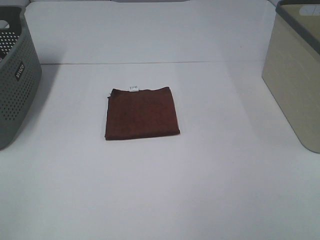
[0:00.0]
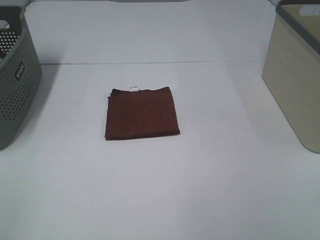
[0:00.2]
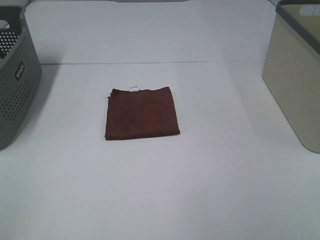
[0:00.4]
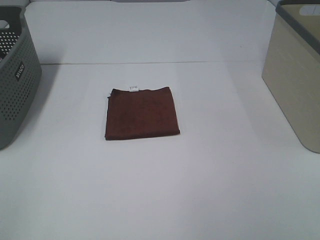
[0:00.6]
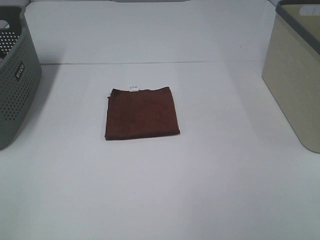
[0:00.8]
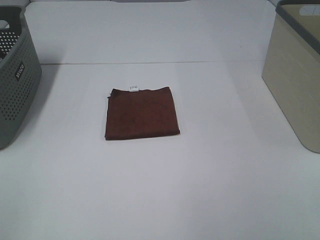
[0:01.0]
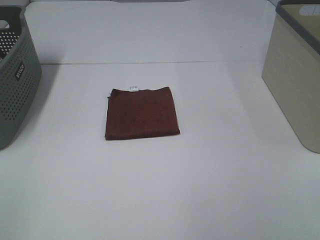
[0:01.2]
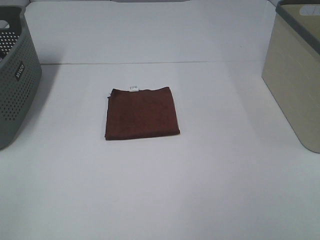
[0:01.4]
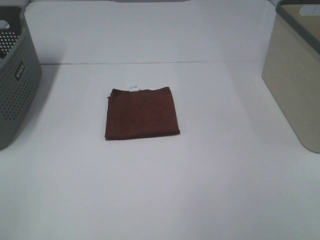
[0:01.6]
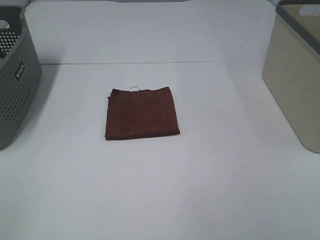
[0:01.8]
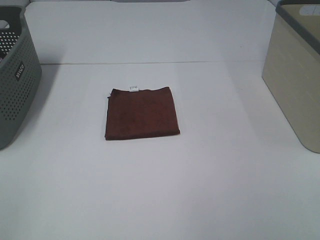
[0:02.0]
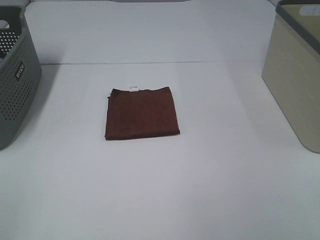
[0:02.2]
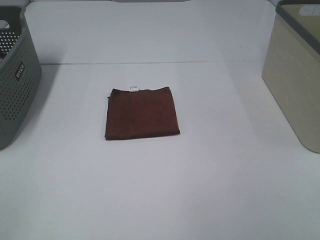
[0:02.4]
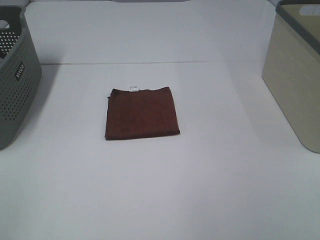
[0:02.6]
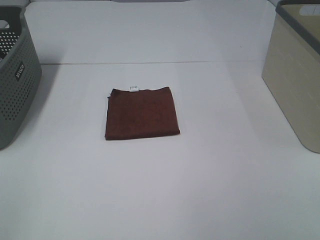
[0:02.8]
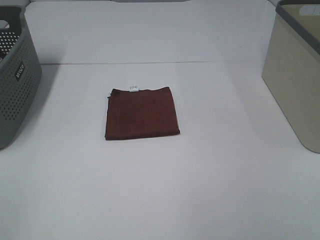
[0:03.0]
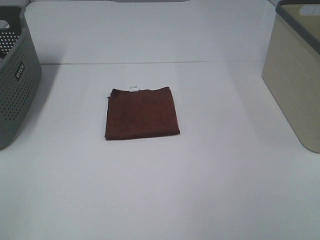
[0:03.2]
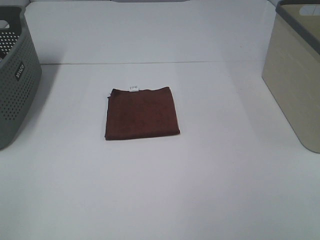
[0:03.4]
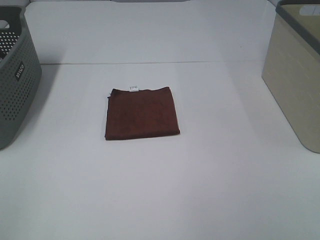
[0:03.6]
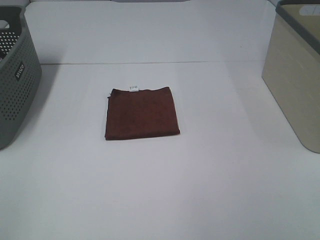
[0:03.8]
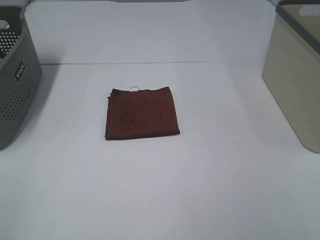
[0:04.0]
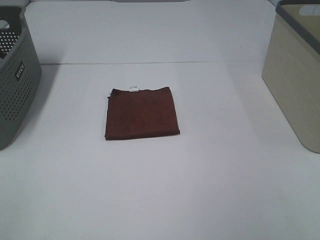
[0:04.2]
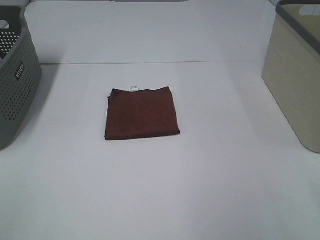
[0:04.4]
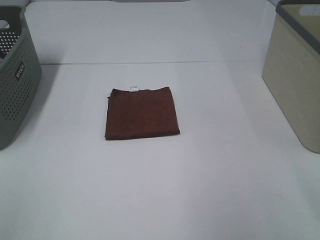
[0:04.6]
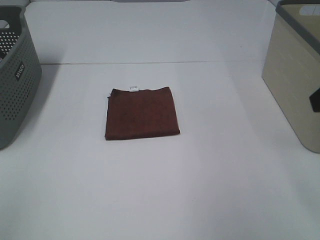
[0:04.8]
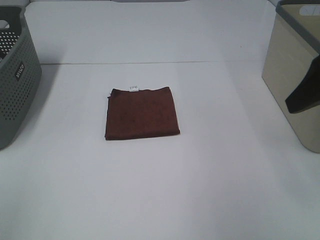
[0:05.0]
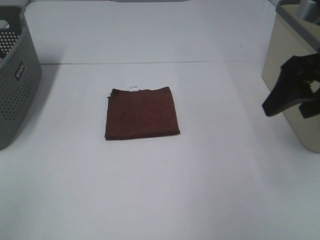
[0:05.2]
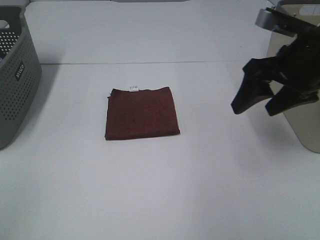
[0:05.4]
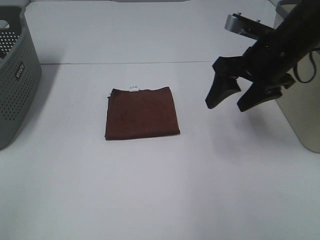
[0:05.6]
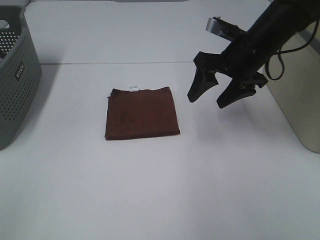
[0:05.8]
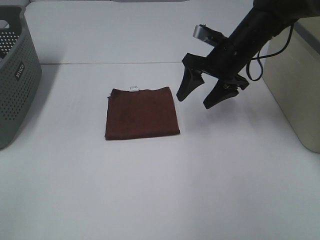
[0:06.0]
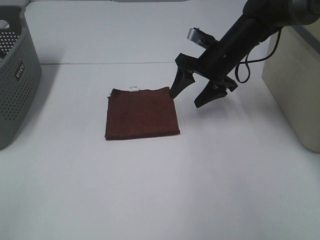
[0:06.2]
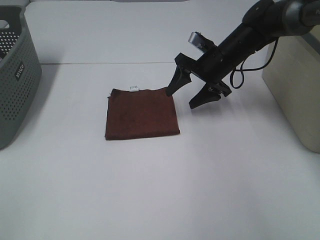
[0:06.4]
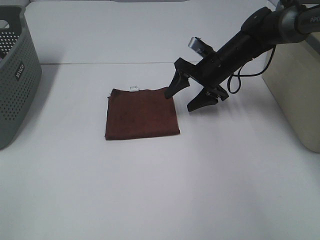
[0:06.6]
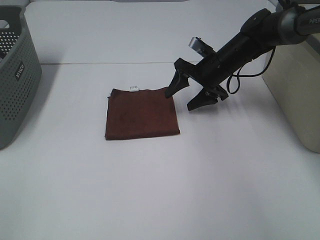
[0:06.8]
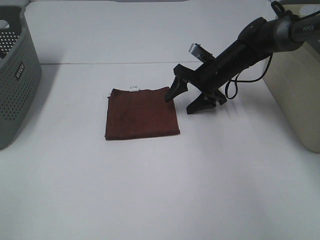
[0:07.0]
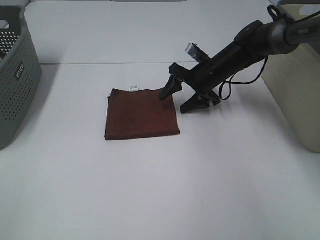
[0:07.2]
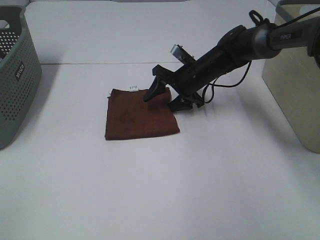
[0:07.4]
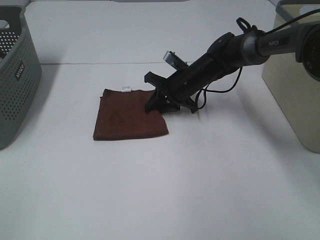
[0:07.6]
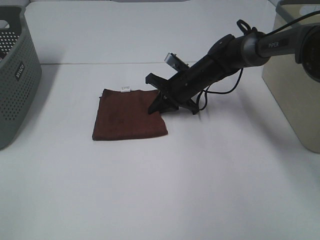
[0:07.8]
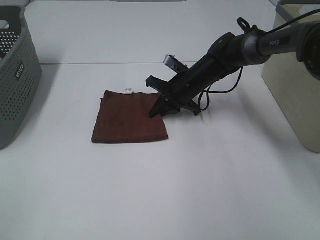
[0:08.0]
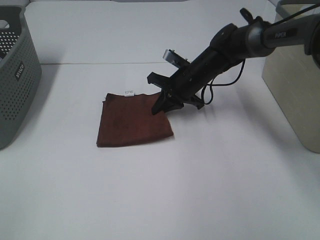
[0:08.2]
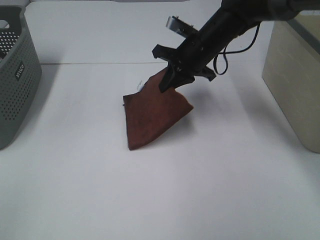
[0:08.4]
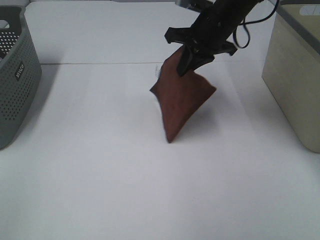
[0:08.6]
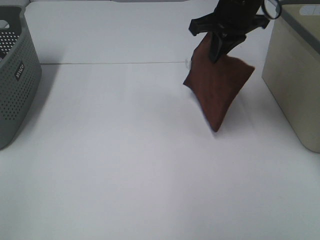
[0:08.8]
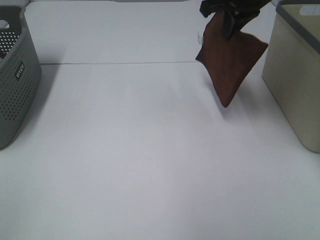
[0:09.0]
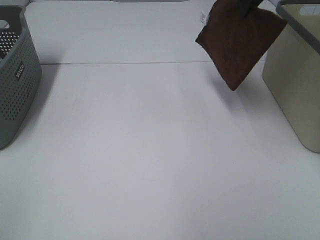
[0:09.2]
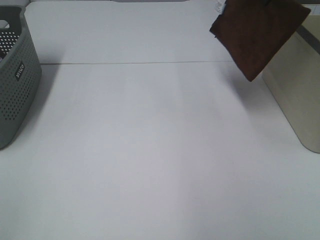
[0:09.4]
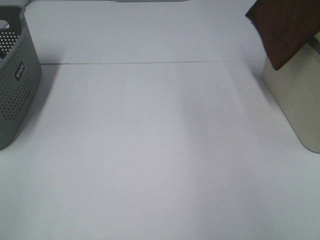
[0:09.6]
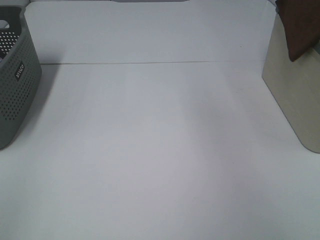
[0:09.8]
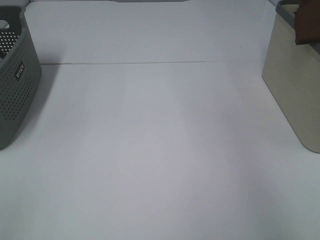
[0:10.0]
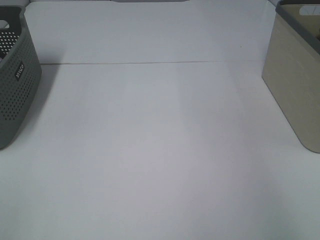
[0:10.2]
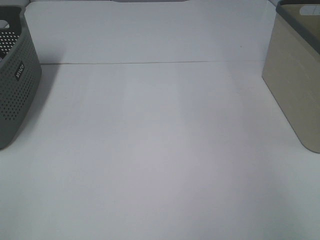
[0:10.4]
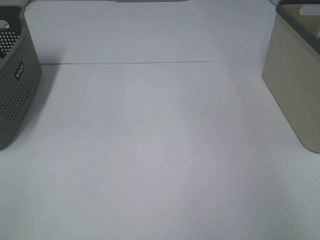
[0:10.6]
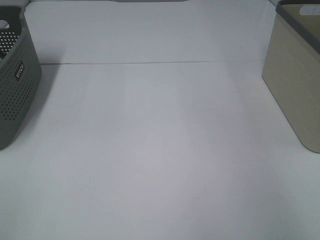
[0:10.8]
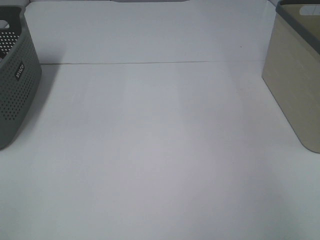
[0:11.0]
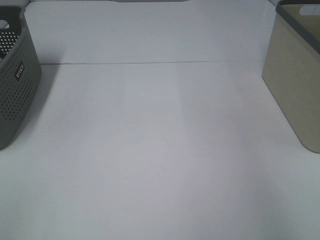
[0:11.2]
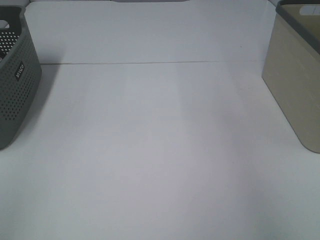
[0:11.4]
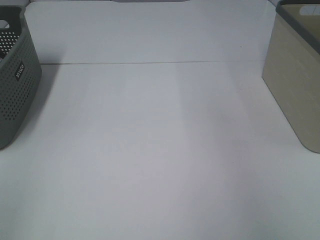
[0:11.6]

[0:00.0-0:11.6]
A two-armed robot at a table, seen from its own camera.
Step, 0:00.0 to 0:07.8: Right hand: grab the folded brown towel.
Step, 0:08.0 to 0:10.8: Right hand: place the brown towel in right basket.
0:00.0 to 0:02.8: Both grippers stay about where they are.
0:04.4 to 0:05.8: The right gripper travels forward, downward and to the left by some 35 cm.
0:05.8 to 0:07.2: The right gripper is displaced downward and forward by about 15 cm.
0:07.2 to 0:08.8: The right gripper heads upward, covering roughly 20 cm, and closes its fingers.
0:08.8 to 0:10.2: The right gripper heads to the right, covering about 25 cm.

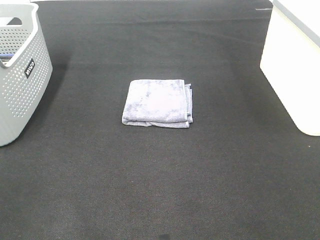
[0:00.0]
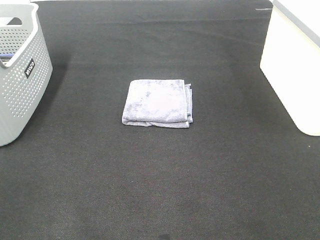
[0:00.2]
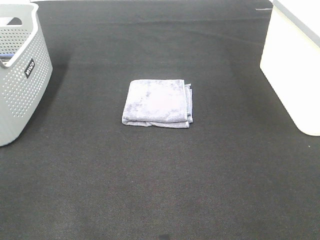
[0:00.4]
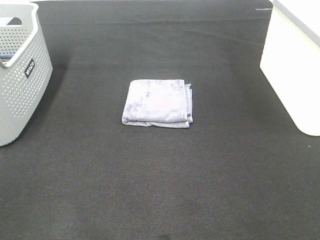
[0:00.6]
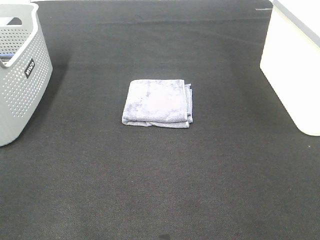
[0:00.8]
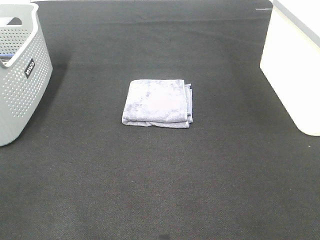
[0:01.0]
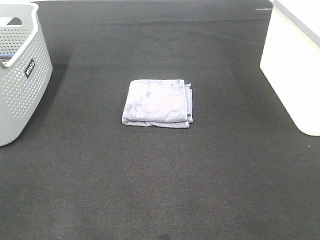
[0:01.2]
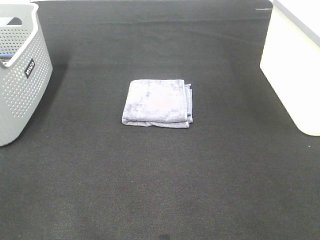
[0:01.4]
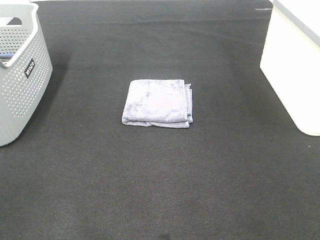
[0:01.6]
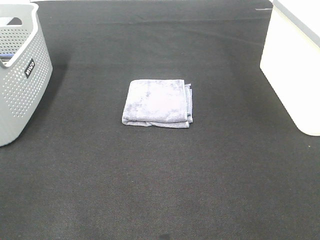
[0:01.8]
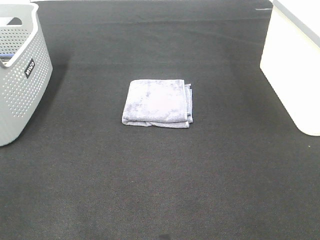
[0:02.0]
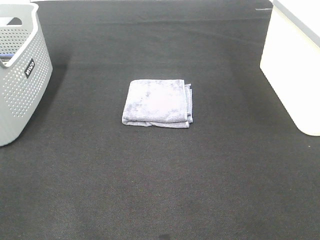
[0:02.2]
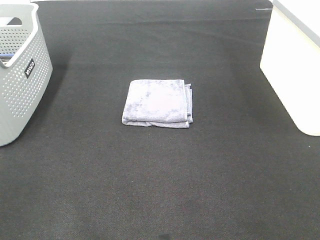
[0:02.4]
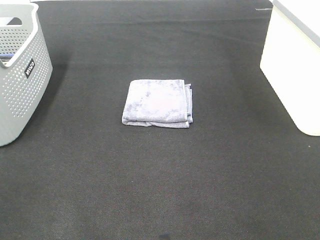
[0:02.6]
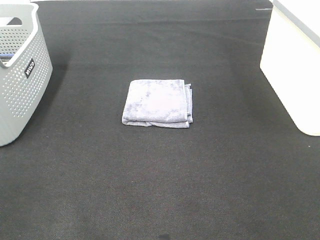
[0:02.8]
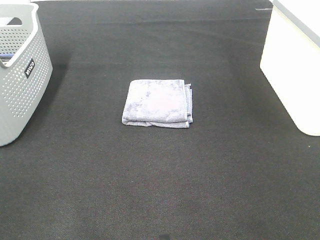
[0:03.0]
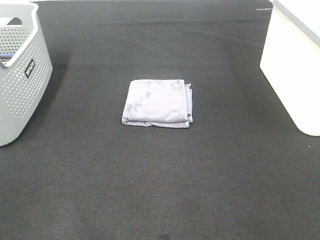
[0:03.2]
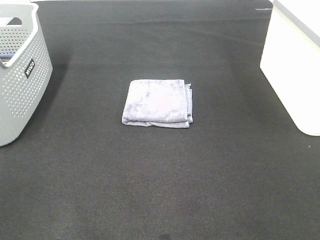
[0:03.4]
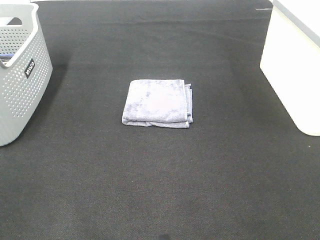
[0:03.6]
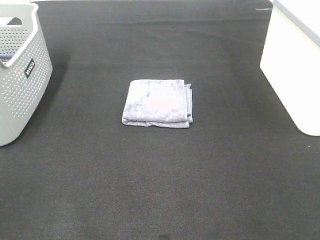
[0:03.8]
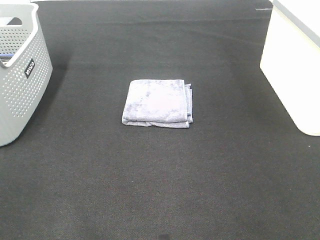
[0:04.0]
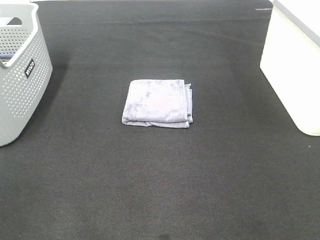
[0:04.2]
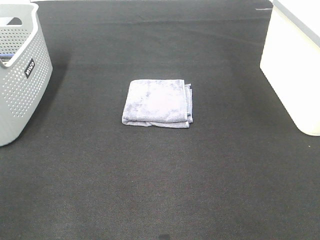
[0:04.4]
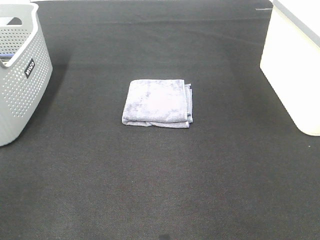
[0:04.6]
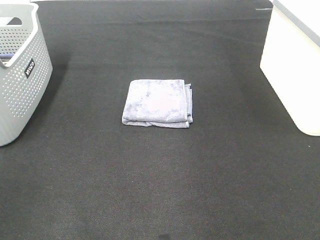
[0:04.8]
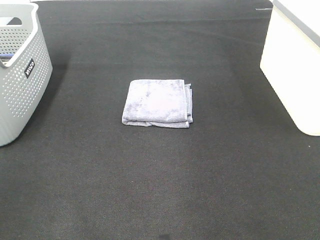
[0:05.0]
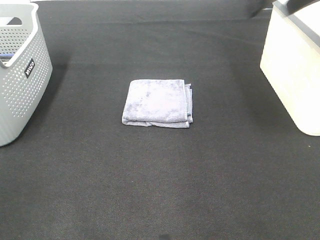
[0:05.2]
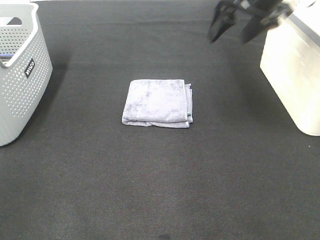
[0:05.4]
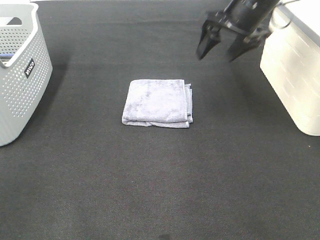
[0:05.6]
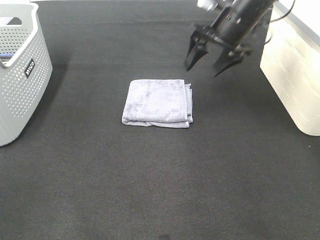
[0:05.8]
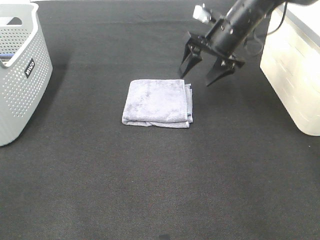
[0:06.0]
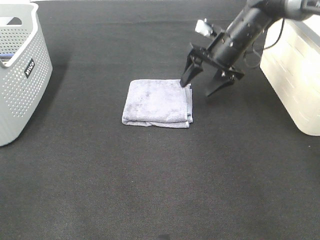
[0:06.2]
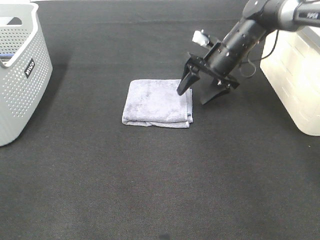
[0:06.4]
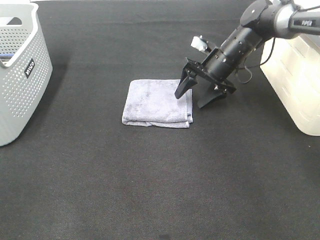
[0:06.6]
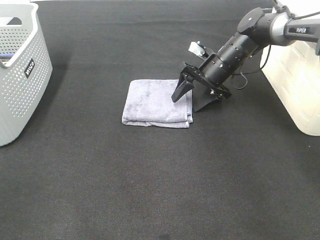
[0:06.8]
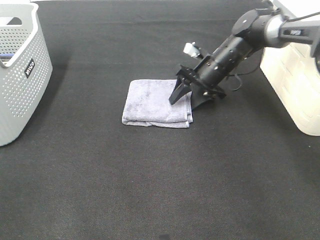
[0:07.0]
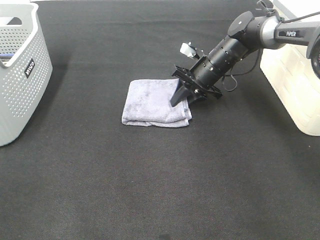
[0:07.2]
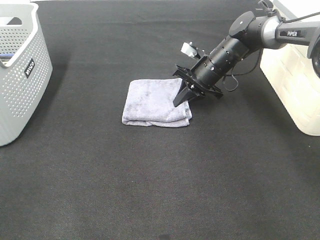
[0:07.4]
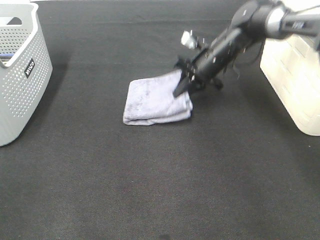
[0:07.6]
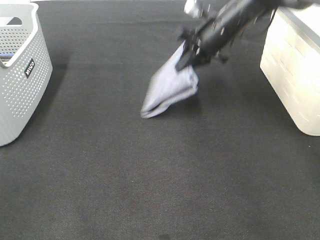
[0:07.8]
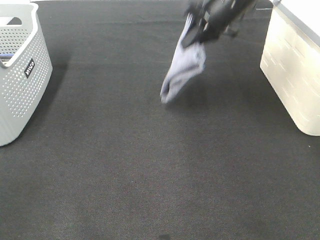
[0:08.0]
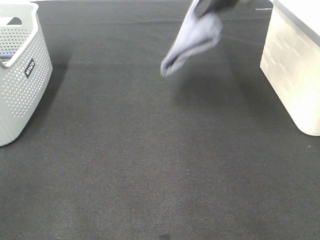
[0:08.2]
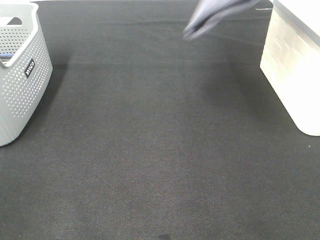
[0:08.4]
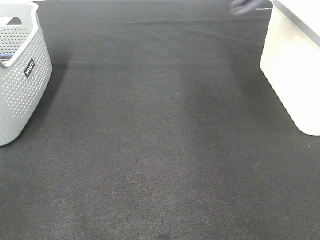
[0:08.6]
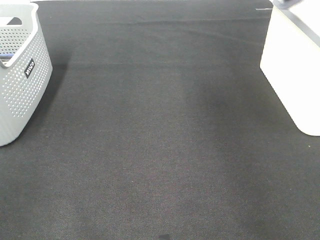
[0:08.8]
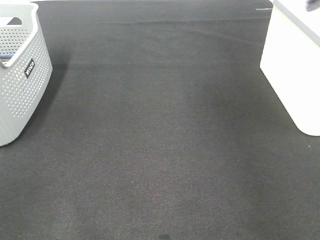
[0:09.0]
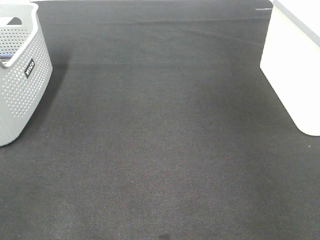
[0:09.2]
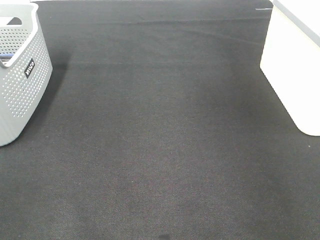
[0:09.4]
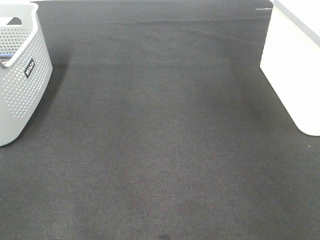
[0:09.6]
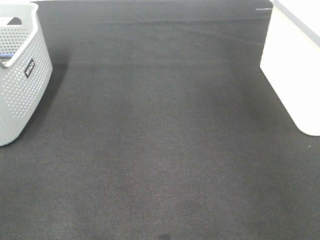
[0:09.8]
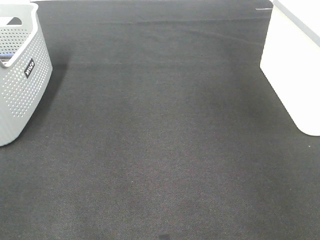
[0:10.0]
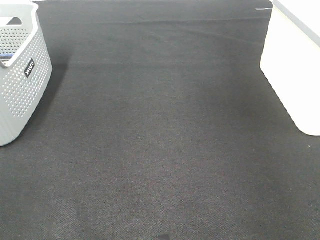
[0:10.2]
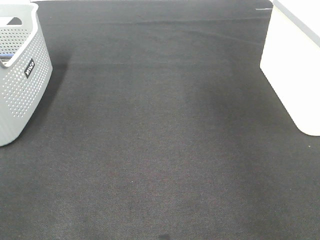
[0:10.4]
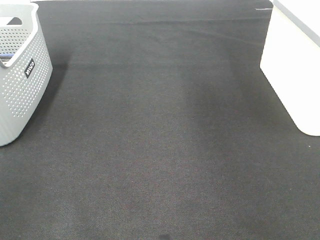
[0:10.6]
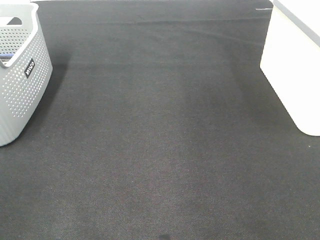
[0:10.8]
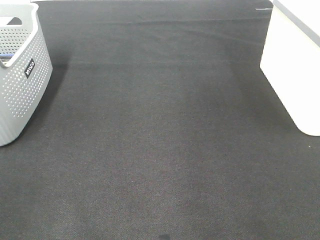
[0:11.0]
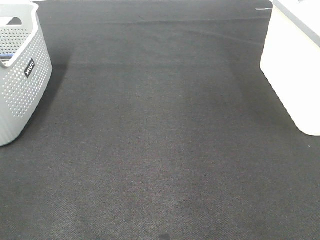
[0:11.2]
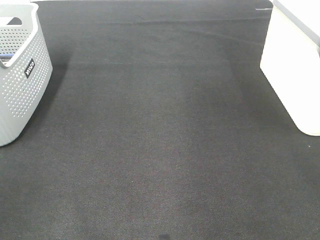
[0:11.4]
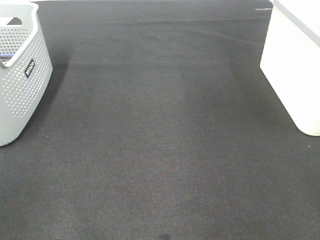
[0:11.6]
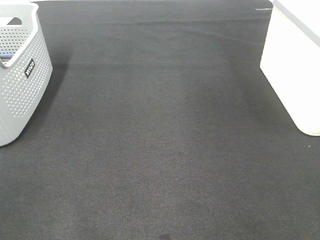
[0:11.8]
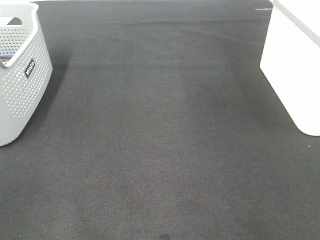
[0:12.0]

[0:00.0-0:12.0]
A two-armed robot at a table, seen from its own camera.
Step, 0:00.0 to 0:07.4: Right hand: grab the folded grey towel.
Step, 0:07.6 to 0:10.0: Right hand: place the grey towel in right basket.
0:00.0 to 0:03.0: Both grippers stay about where they are.
0:04.4 to 0:06.0: The right gripper moves forward, downward and to the left, about 40 cm.
0:06.0 to 0:07.6: The right gripper goes approximately 5 cm downward, and closes up.
0:07.6 to 0:09.0: The right gripper shifts about 40 cm upward and to the right.
